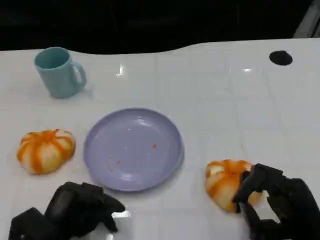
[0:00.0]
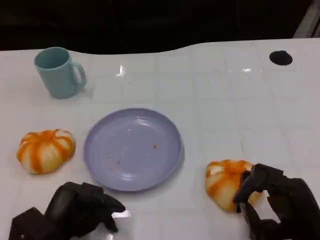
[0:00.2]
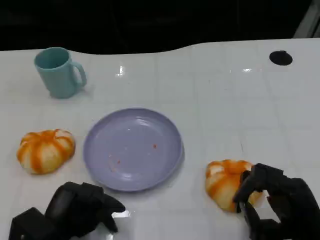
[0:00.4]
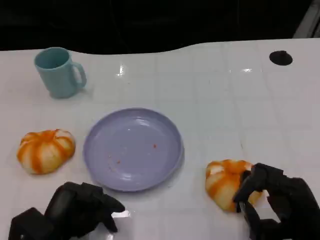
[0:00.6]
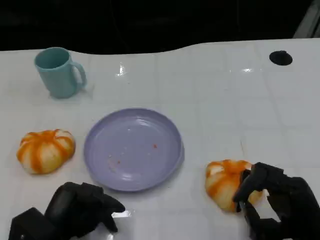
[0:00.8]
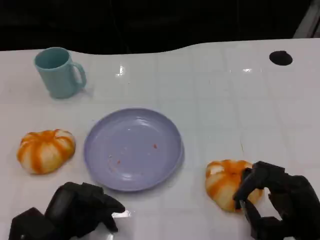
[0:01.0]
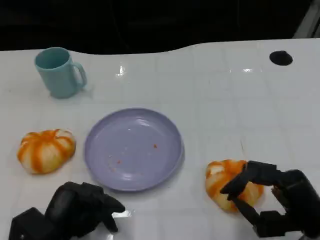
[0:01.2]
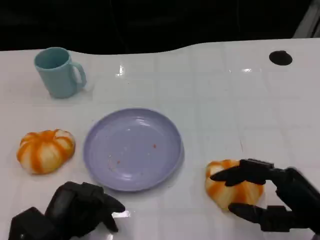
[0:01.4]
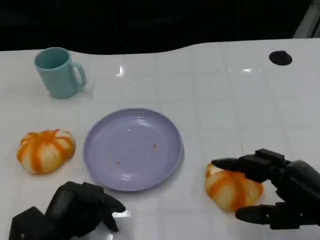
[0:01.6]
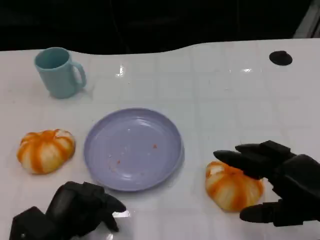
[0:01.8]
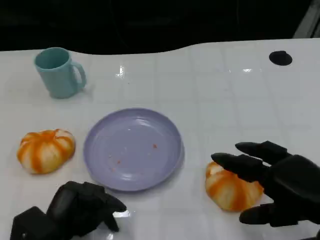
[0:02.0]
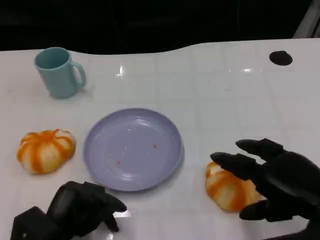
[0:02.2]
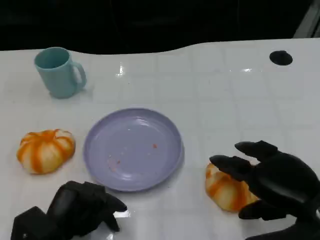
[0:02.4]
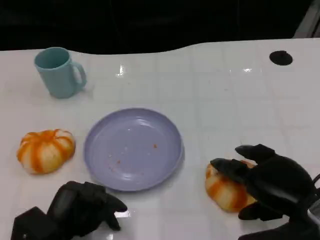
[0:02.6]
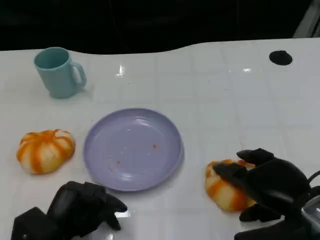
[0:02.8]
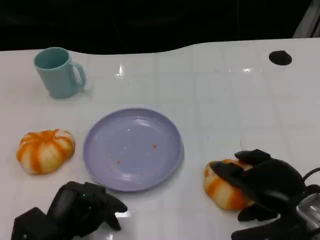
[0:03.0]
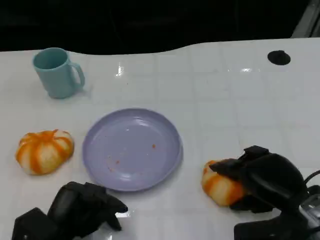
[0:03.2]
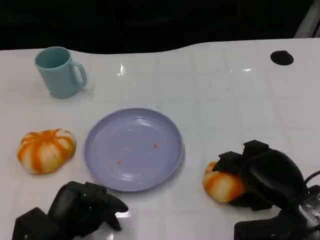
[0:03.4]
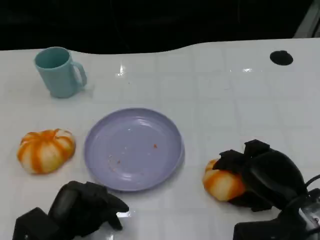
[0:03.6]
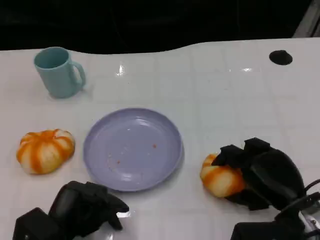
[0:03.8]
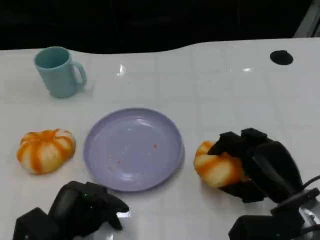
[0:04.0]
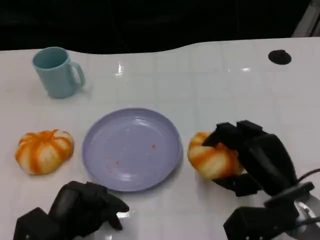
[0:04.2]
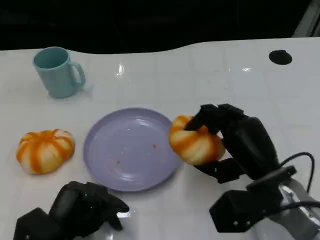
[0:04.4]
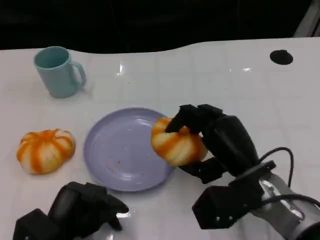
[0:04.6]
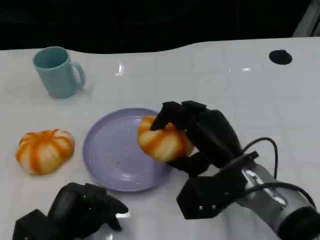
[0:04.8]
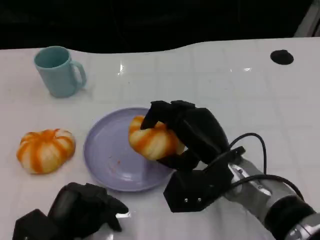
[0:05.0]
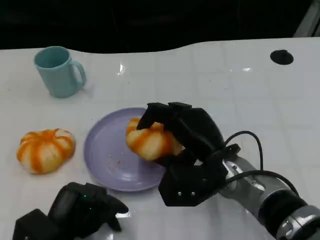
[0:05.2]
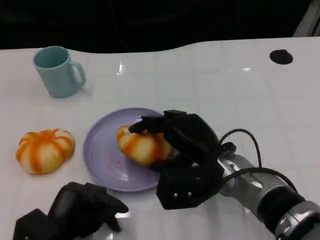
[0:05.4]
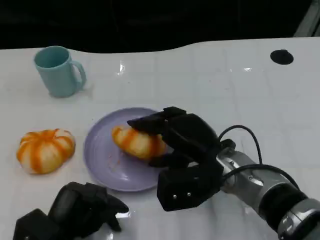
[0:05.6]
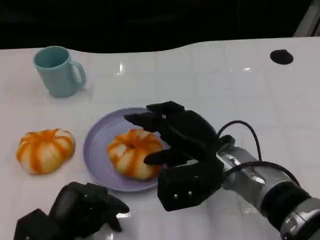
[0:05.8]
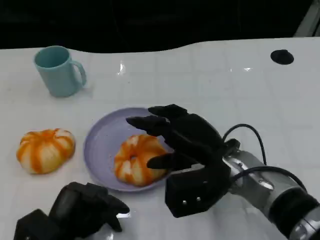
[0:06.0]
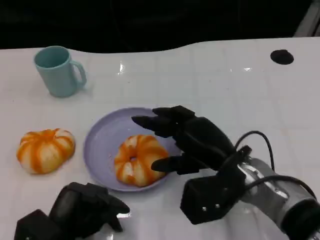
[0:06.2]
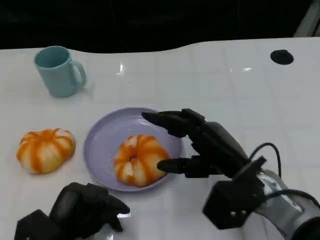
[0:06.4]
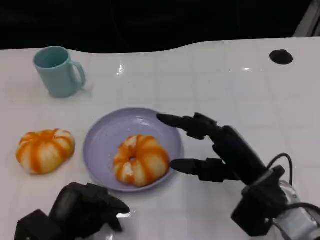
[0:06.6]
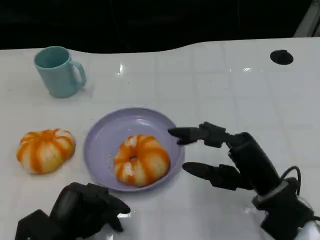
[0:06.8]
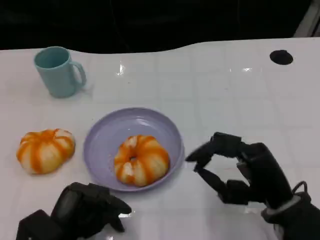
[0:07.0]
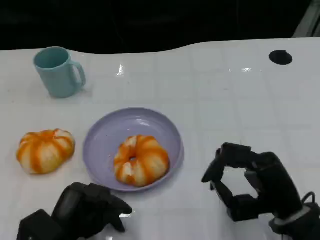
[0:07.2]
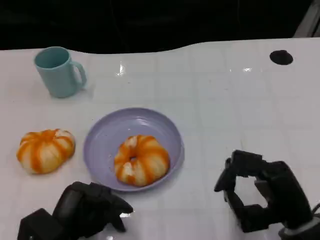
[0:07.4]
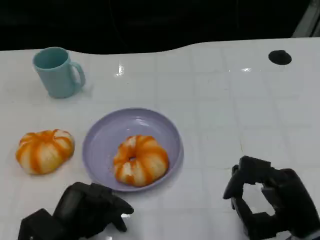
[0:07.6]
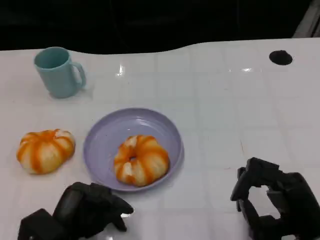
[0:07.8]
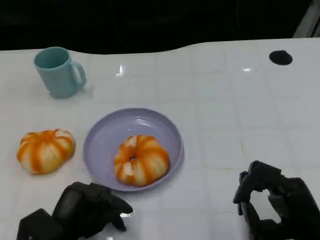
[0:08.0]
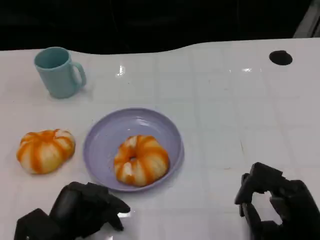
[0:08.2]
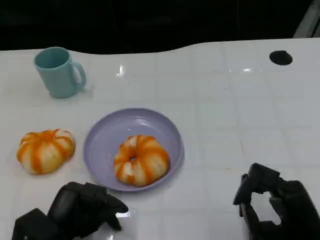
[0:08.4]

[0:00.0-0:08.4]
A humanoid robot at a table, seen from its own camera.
Task of the whole recording: Grasp the bread from the table and place it into the plate.
0:00.0 to 0:01.4: The right hand heads upward, covering approximately 5 cm.
0:04.2 to 0:05.6: The right hand goes about 10 cm to the left.
0:05.6 to 0:07.0: The right hand is displaced to the right and backward by about 10 cm.
0:07.0 to 0:08.4: The right hand ends up some 5 cm from where it was.

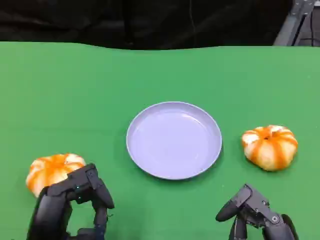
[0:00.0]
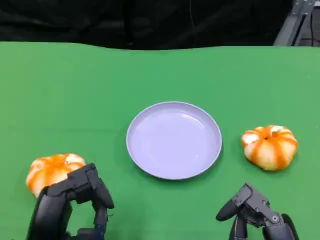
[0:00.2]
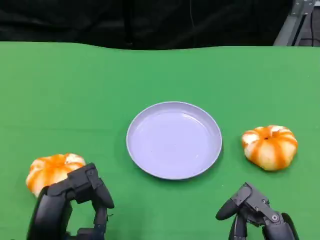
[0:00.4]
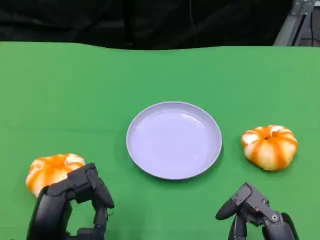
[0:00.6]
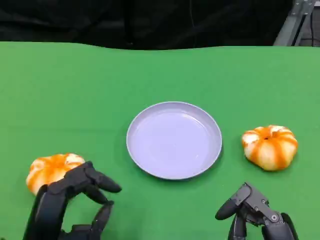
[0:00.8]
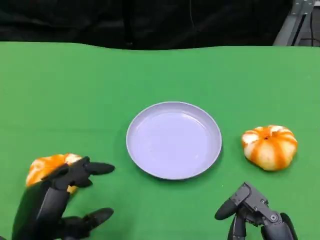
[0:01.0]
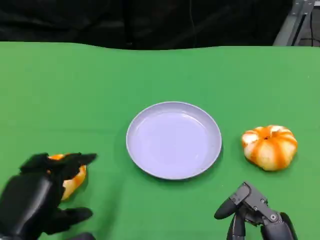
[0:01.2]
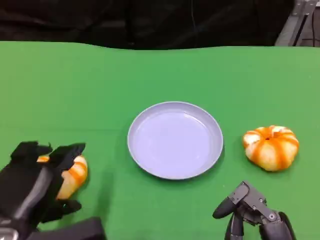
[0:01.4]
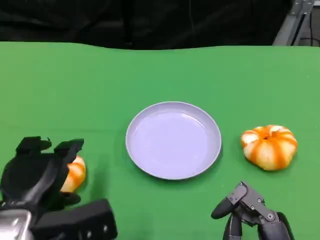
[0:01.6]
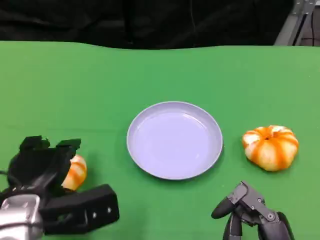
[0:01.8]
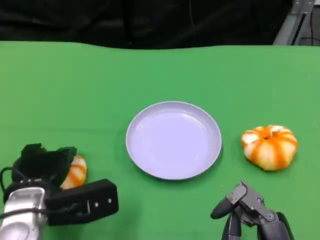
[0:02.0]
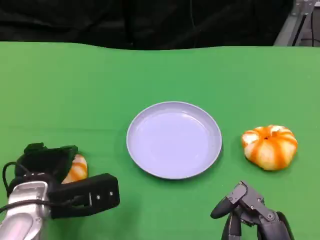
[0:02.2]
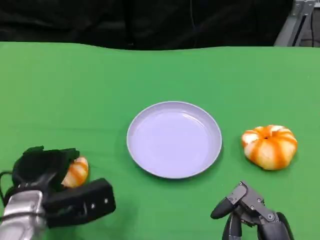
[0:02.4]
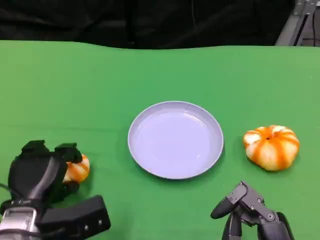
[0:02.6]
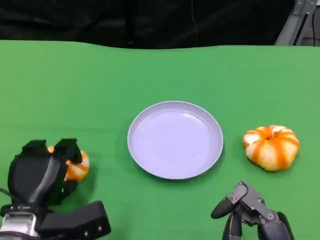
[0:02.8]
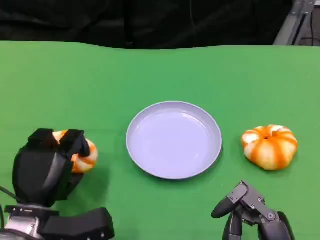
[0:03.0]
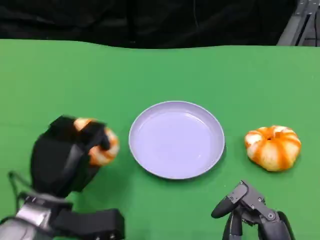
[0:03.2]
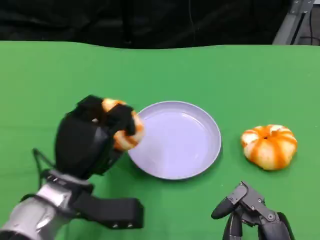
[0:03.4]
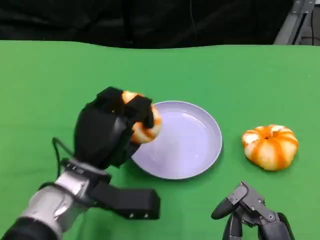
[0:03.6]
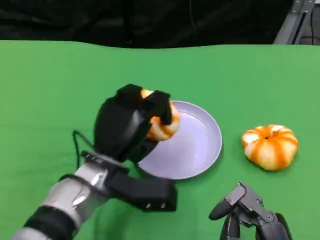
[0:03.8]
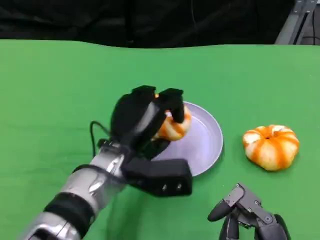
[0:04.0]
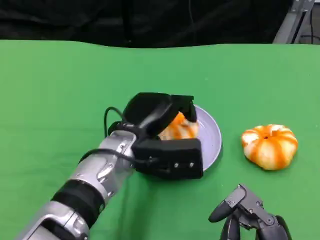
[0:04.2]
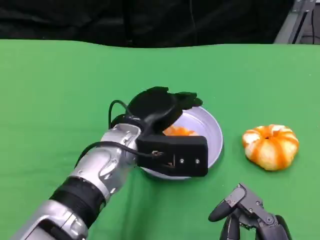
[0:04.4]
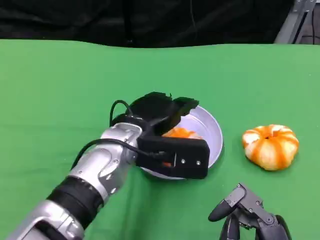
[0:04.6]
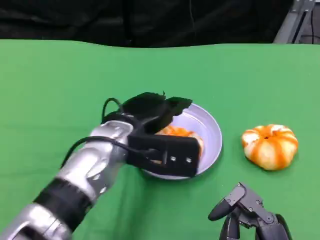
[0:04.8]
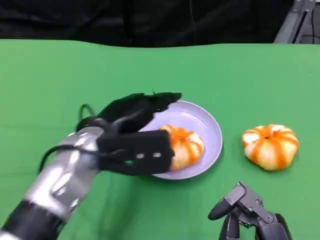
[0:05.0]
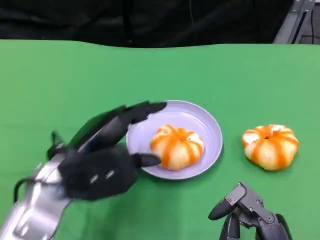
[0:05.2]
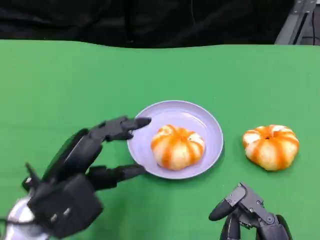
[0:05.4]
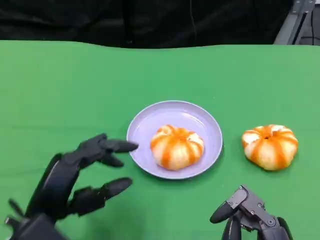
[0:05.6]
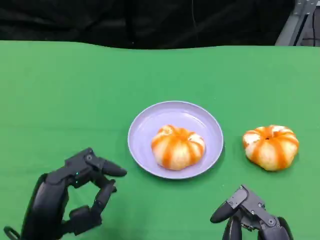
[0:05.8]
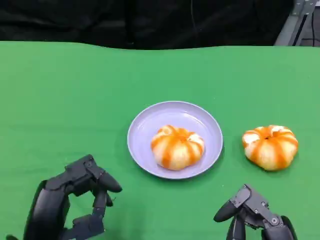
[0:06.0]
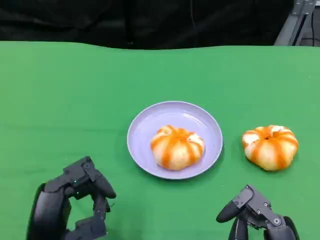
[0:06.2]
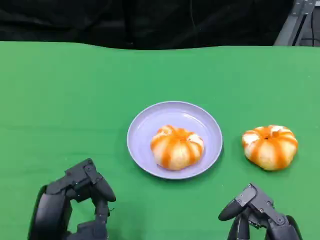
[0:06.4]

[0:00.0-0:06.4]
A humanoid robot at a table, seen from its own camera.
Task of the whole recording: Grasp the bread from the table and place it into the plate.
0:00.0 to 0:01.6: The left hand is displaced forward by approximately 5 cm.
0:01.6 to 0:03.2: The left hand moves roughly 5 cm.
0:03.2 to 0:04.8: The left hand is displaced to the right, upward and forward by roughly 15 cm.
0:04.8 to 0:06.4: The left hand heads backward and to the left, covering about 20 cm.

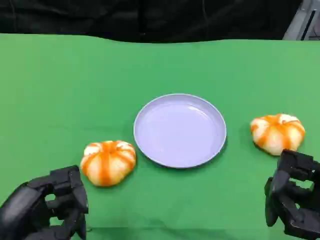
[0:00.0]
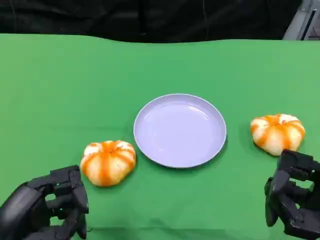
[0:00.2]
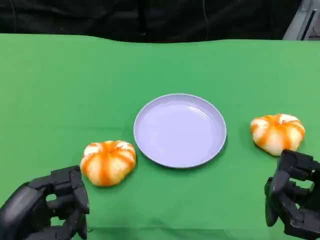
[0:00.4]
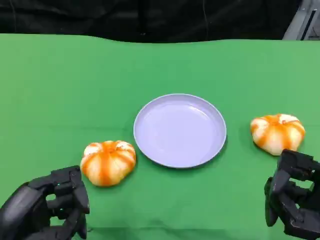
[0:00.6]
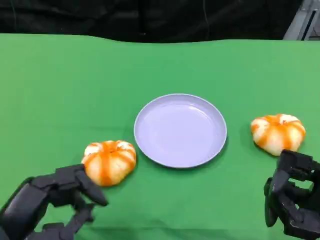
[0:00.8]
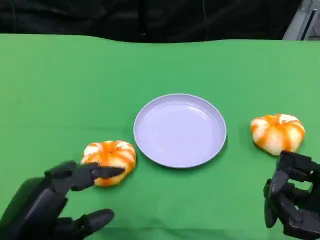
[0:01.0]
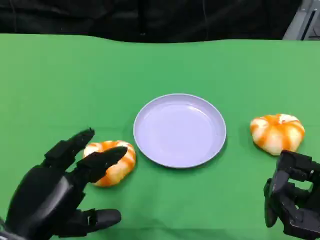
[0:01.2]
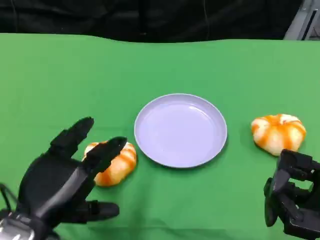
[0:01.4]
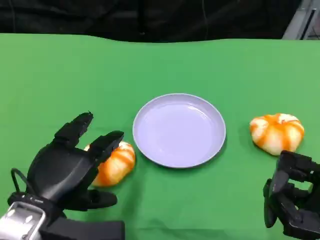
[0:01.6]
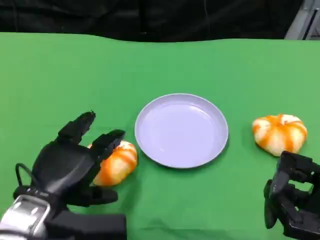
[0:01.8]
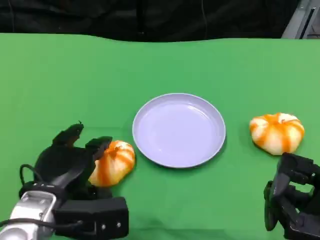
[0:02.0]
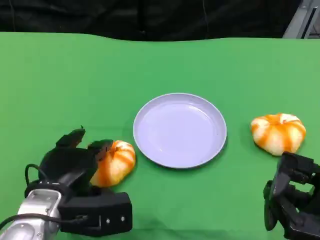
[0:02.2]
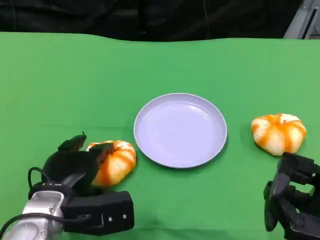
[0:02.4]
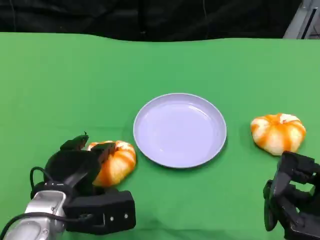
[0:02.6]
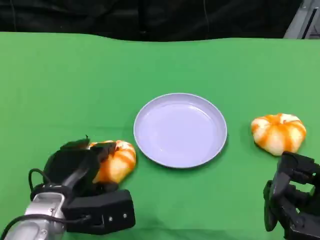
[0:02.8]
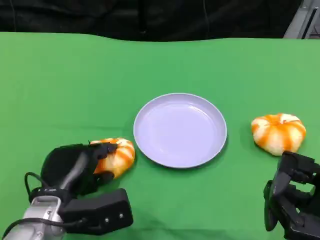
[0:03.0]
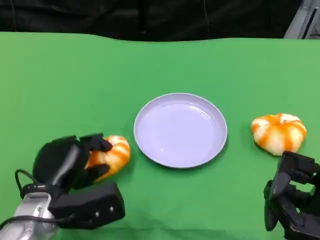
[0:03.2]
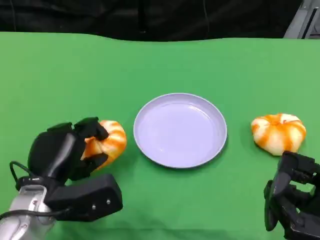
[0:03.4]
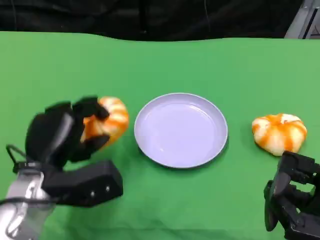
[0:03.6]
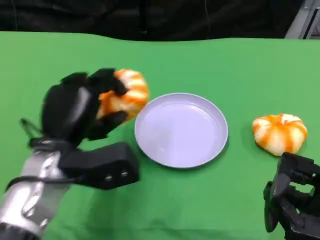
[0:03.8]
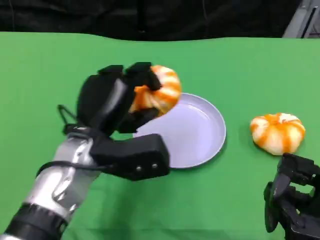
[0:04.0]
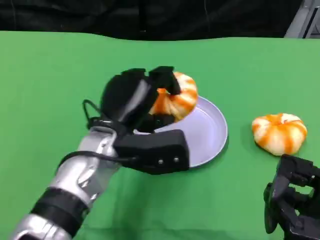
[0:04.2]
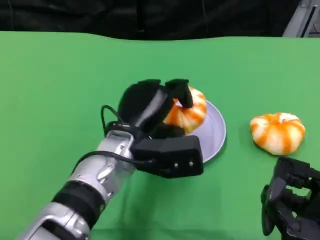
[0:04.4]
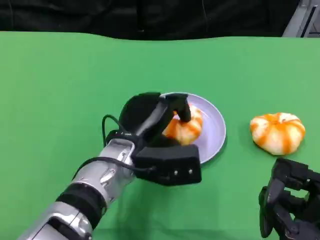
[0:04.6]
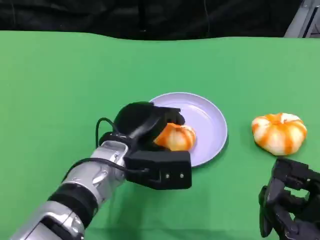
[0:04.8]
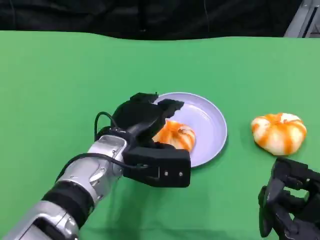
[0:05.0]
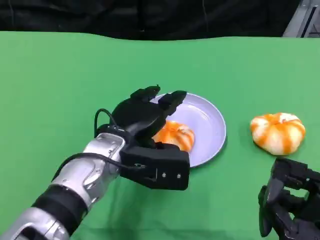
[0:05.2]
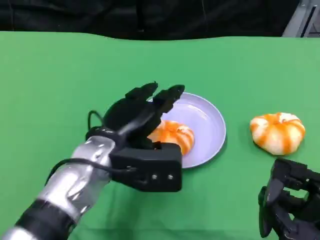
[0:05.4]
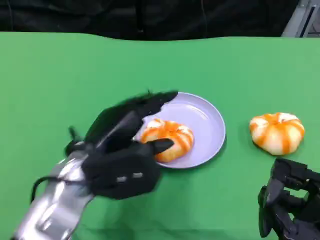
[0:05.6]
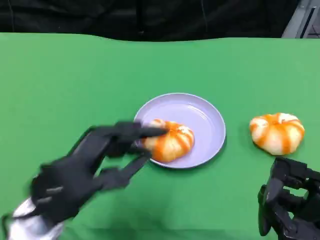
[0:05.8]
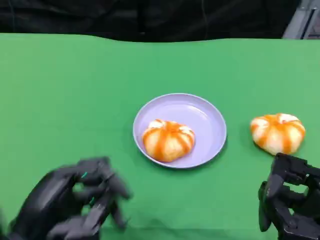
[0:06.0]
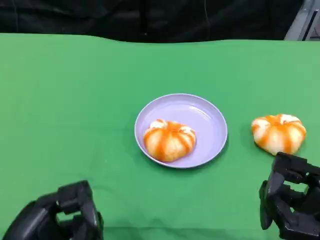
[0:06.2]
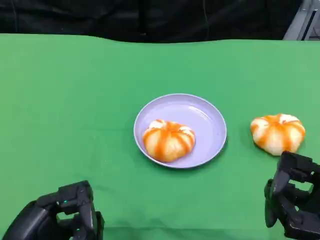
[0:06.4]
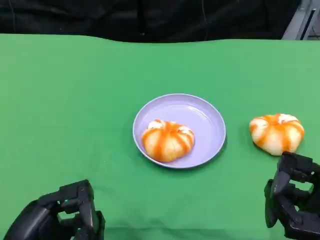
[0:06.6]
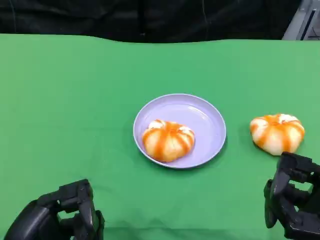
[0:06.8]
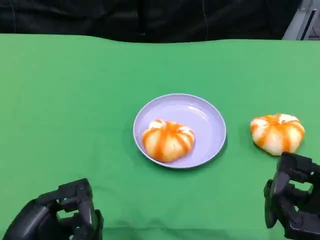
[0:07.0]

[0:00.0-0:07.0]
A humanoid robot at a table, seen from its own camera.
Task of the whole recording: Grasp the bread from the table and place it into the plate.
0:00.0 to 0:01.4: The left hand shifts by some 5 cm.
0:01.4 to 0:02.8: The left hand moves downward and forward, roughly 10 cm.
0:02.8 to 0:04.2: The left hand heads to the right, upward and forward, covering roughly 15 cm.
0:04.2 to 0:05.6: The left hand heads to the left and backward, covering about 10 cm.
0:05.6 to 0:07.0: The left hand goes approximately 15 cm backward and to the left.
